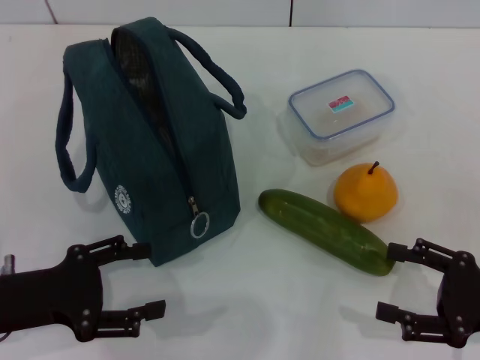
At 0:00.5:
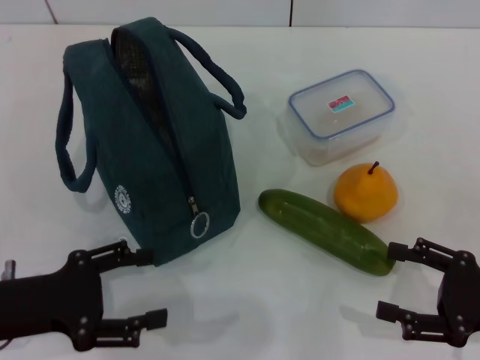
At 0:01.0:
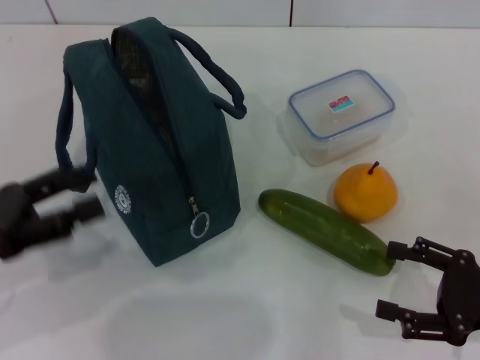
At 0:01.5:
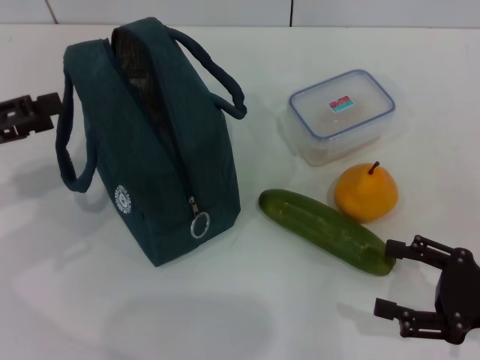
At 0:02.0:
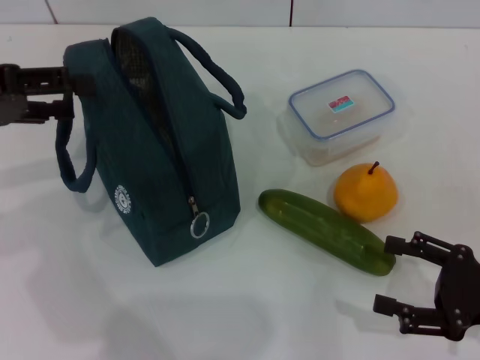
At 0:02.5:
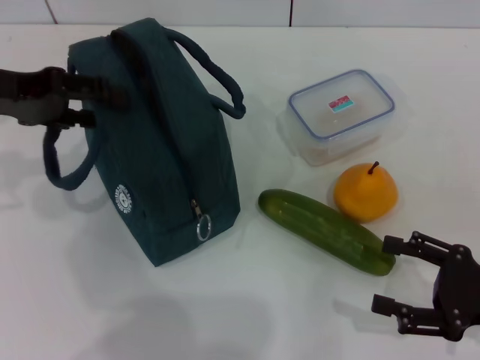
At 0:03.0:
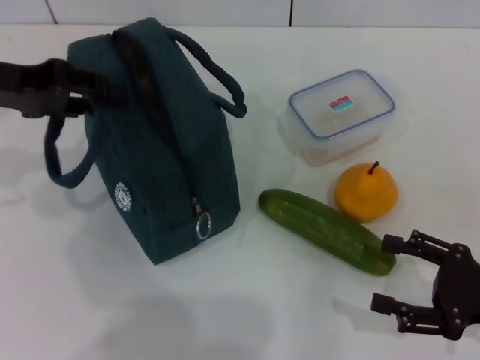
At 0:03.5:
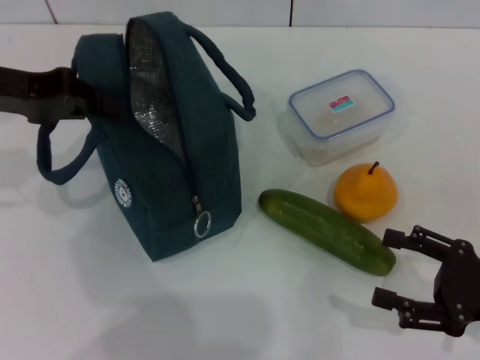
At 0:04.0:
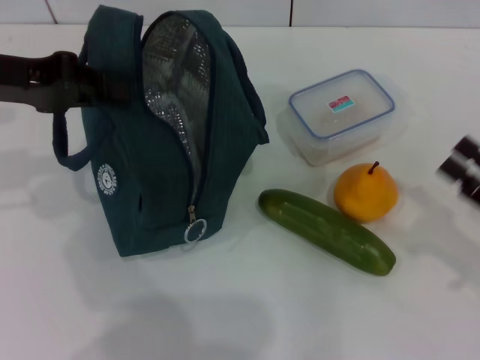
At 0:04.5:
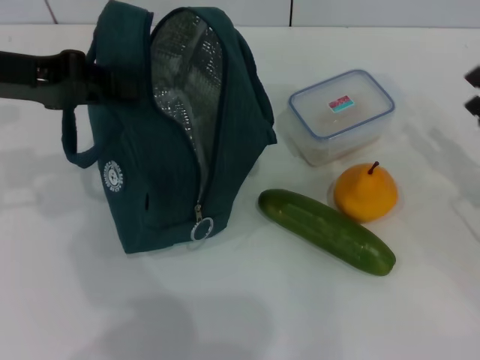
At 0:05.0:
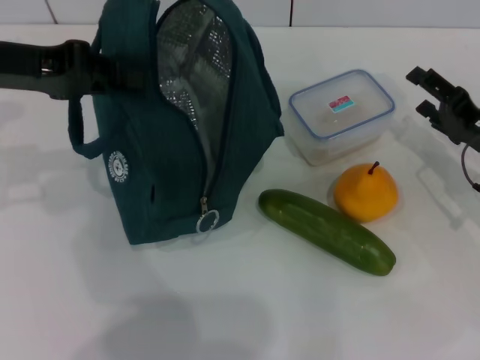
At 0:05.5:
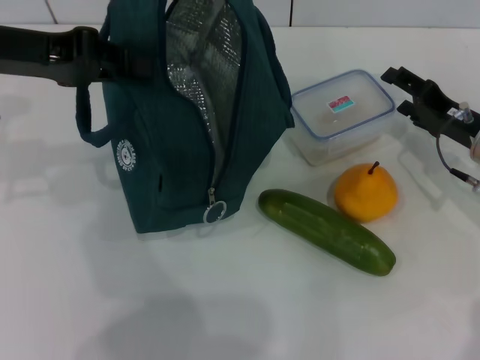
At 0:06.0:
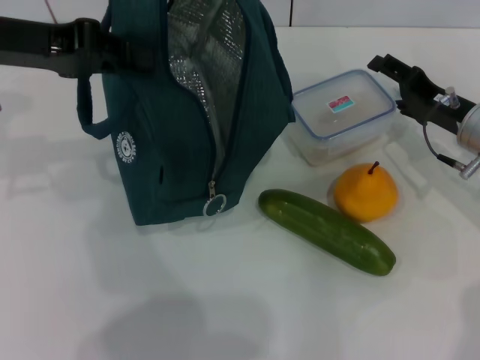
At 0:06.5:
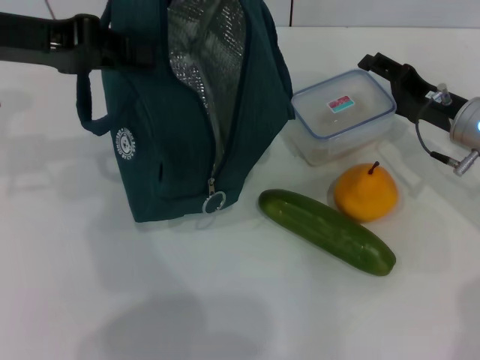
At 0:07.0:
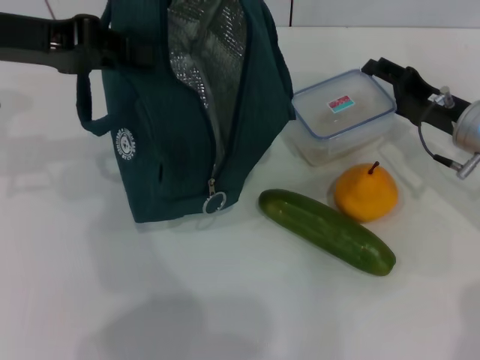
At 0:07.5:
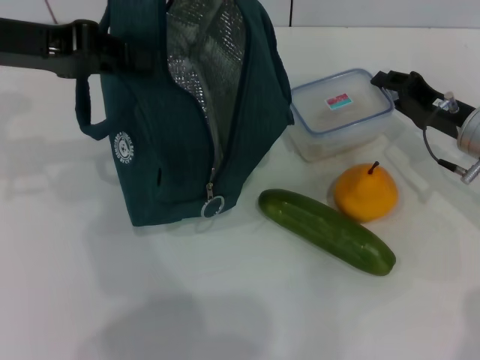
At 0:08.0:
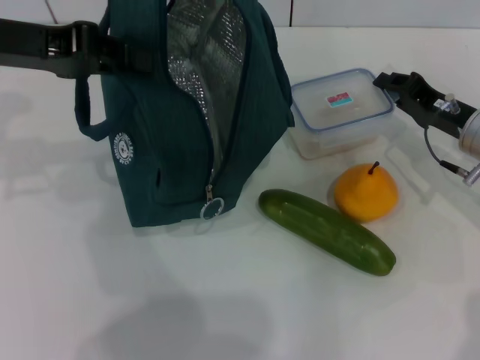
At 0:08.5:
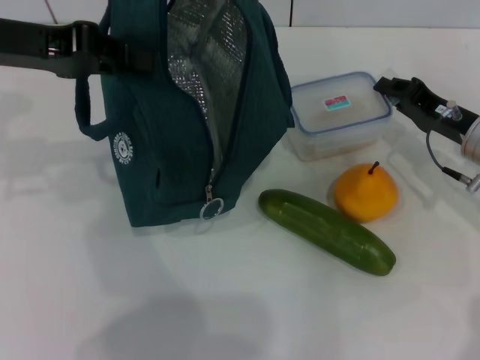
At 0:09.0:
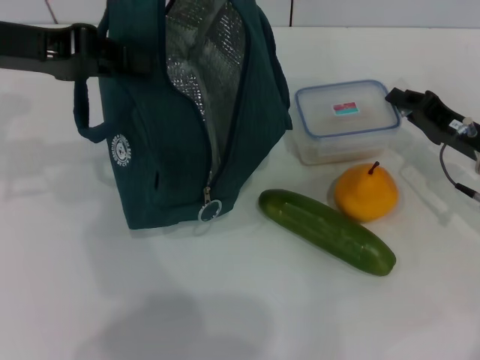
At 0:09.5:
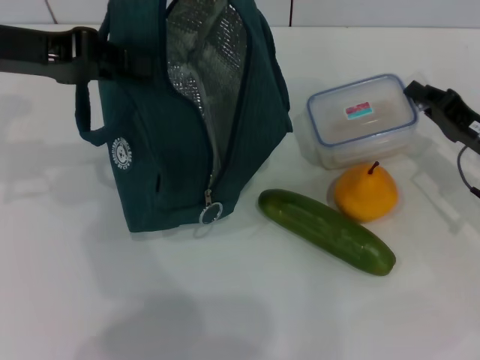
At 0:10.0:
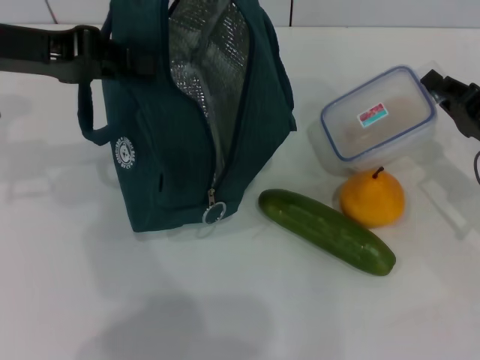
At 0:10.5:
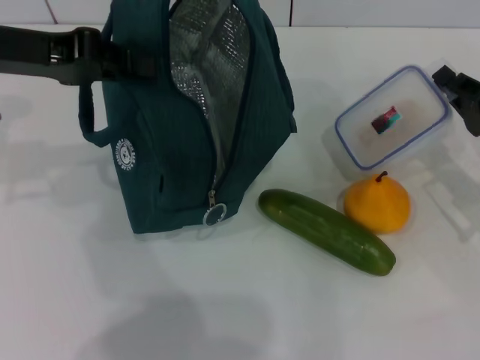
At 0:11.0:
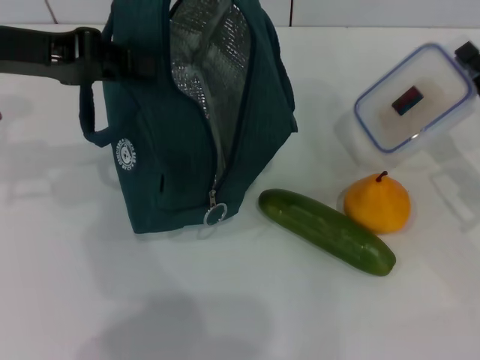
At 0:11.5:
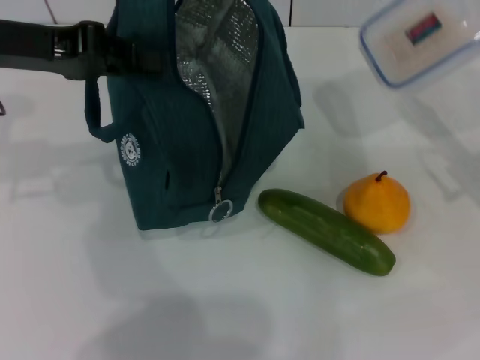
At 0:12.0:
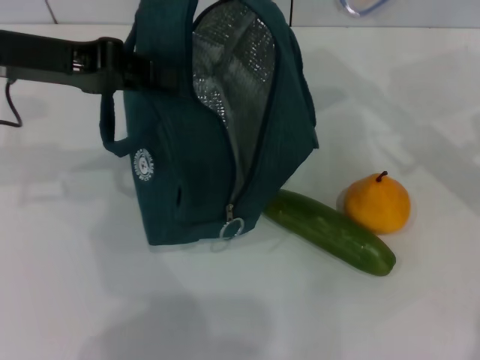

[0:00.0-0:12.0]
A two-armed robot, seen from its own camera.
Step, 0:00.0 to 0:03.5: Hold the lunch bag with your left hand.
Step, 0:04.0 to 0:07.5: Pick up the lunch box with your right hand.
0:00.0 to 0:02.0: The left gripper travels upward and forward by roughly 20 cm.
0:02.0 to 0:04.0: The left gripper shifts by approximately 5 cm, and closes.
0:04.0 to 0:06.0: The right gripper moves forward and to the left, approximately 20 cm.
0:06.0 to 0:08.0: The right gripper closes up.
0:08.0 to 0:10.0: The right gripper travels backward by about 5 cm.
0:10.0 to 0:12.0: The right gripper heads upward, covering roughly 10 cm.

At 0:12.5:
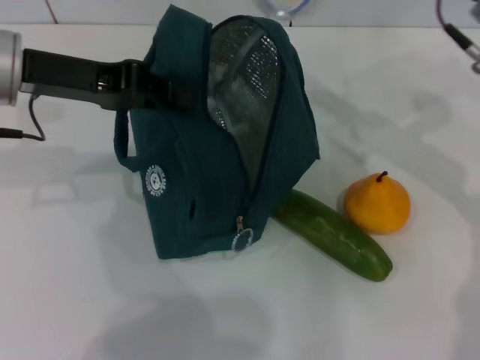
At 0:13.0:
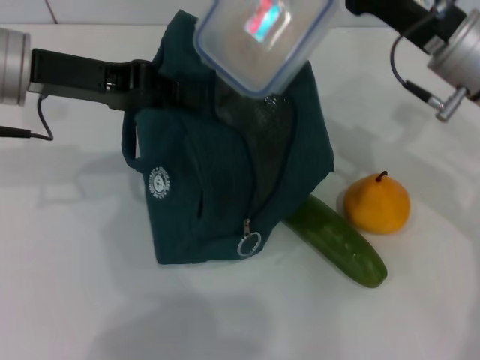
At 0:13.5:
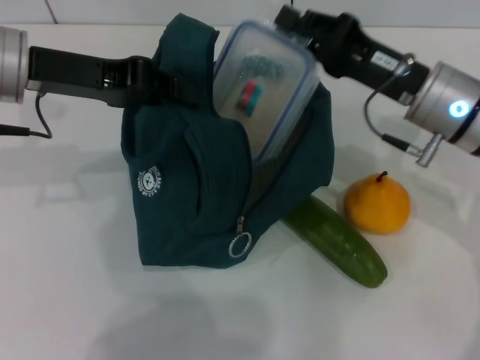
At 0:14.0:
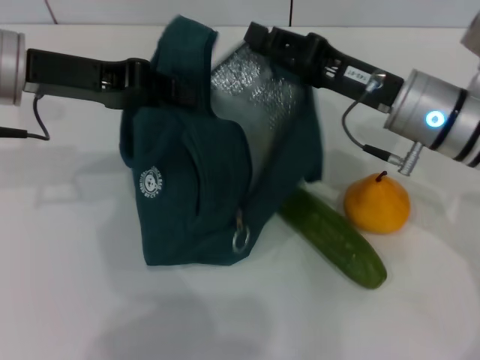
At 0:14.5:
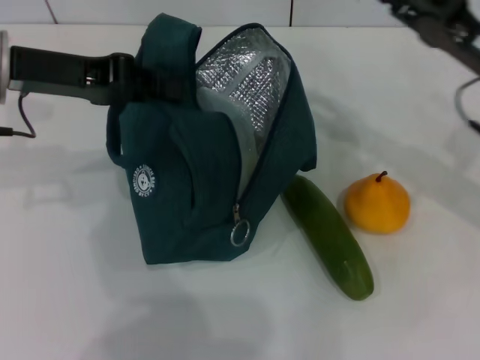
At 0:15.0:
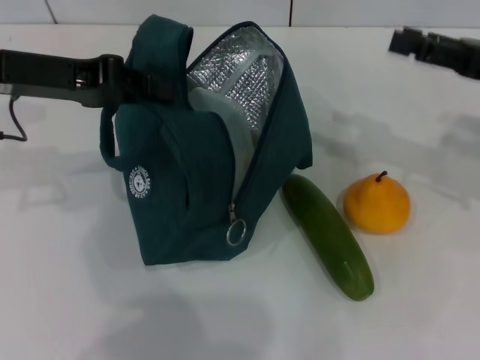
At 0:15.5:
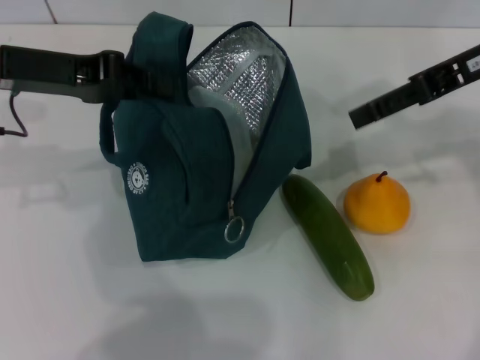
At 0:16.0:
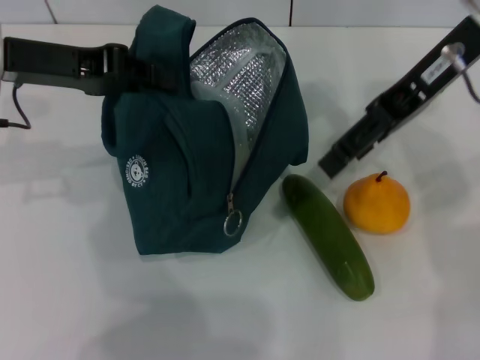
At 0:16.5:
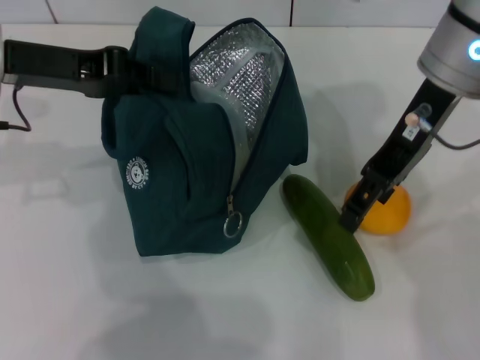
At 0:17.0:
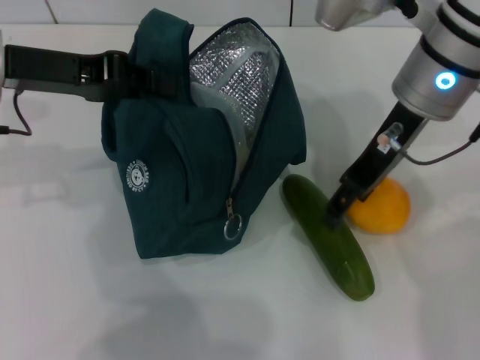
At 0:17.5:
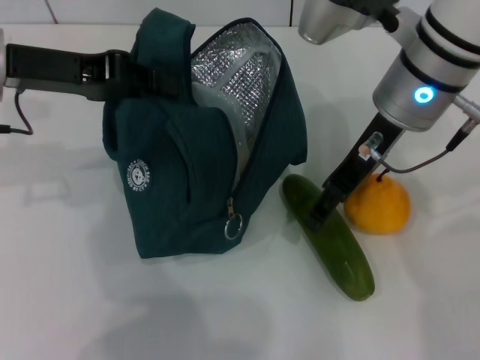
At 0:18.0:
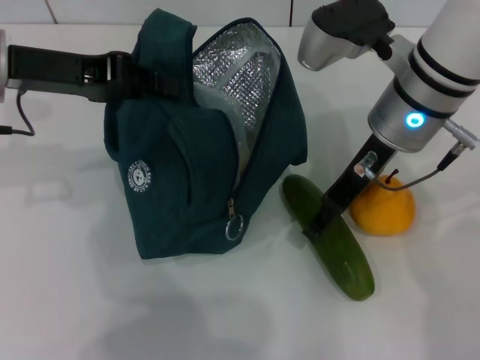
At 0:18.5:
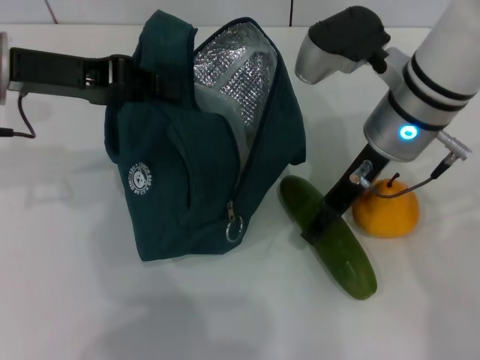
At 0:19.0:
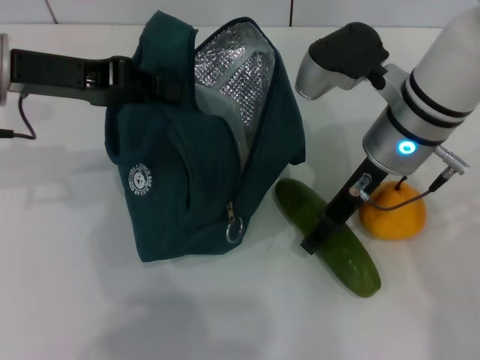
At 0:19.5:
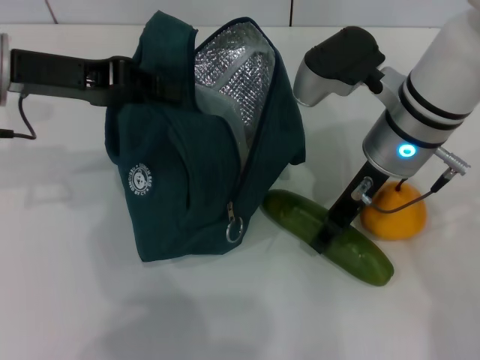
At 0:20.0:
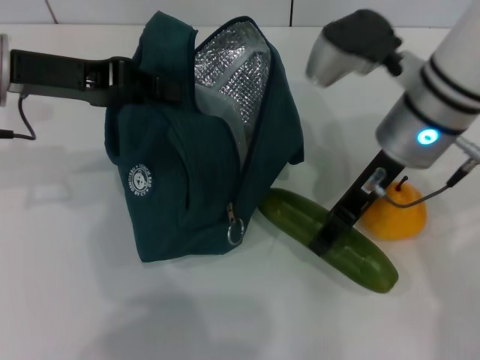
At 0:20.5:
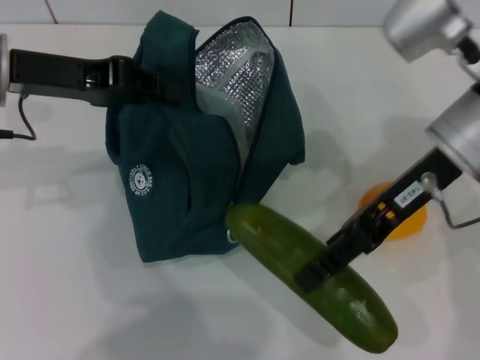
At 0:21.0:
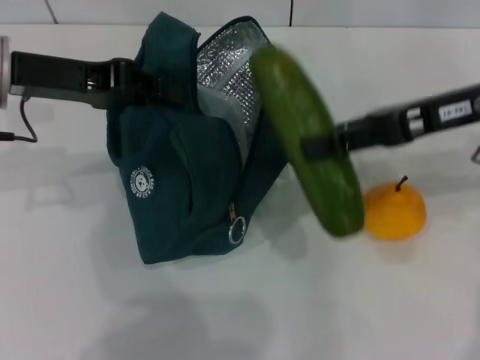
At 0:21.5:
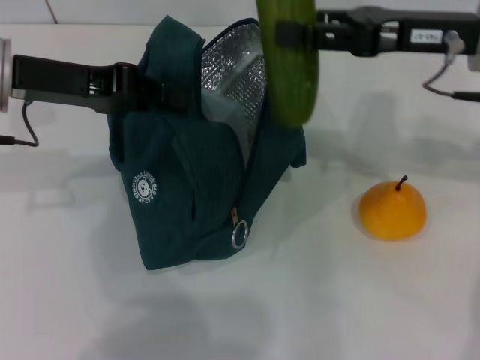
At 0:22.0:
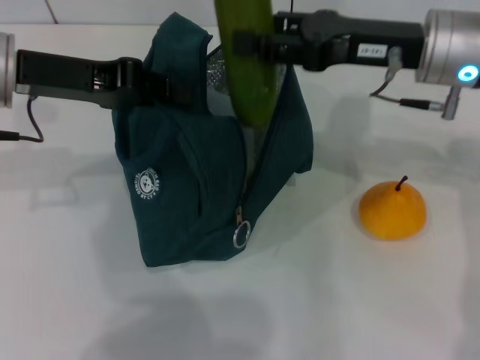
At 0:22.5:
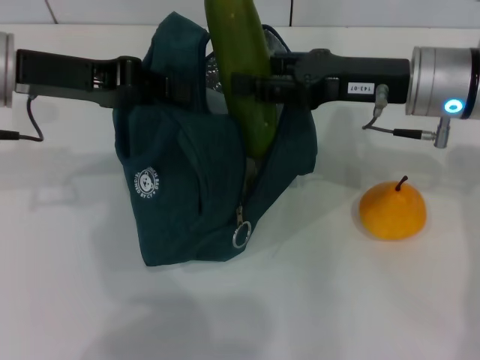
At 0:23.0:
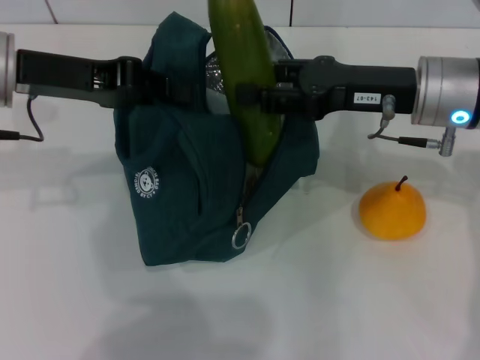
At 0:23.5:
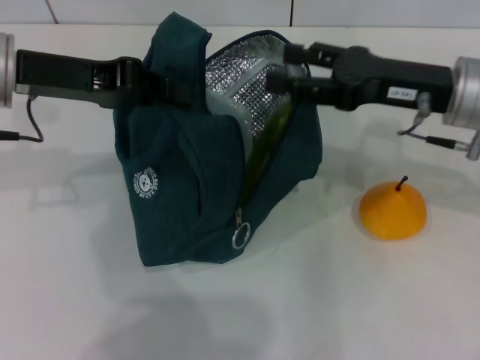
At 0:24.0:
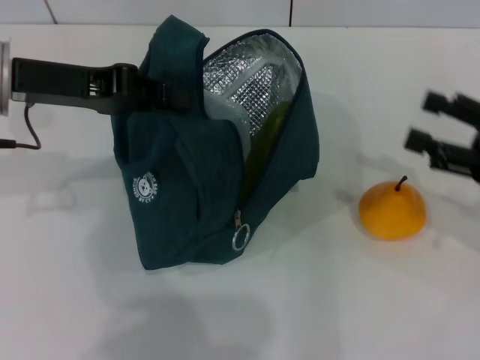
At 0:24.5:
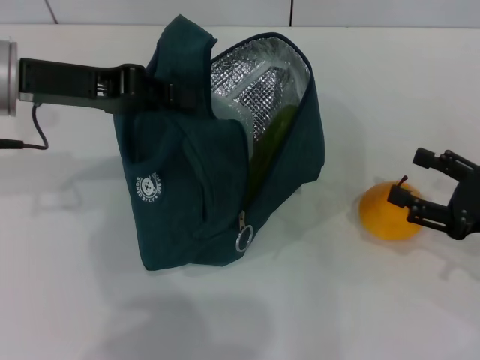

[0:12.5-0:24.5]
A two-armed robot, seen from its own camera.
Step, 0:14.0 to 0:19.5: Pick up the cucumber with your right hand.
Step, 0:20.0 to 0:23.0: Put the cucumber into the lunch bag with your right hand.
0:12.5 to 0:14.5: The right gripper ends up about 10 cm from where it was, and opens.
0:14.5 to 0:16.5: The right gripper heads to the left and upward, covering approximately 15 cm, and opens.
0:16.5 to 0:18.5: The right gripper is displaced downward by roughly 10 cm.
0:18.5 to 0:20.5: The right gripper goes some 5 cm to the right.
0:20.5 to 0:22.5: The right gripper moves some 5 cm.
0:22.5 to 0:24.5: The right gripper moves to the right, backward and downward, about 20 cm.

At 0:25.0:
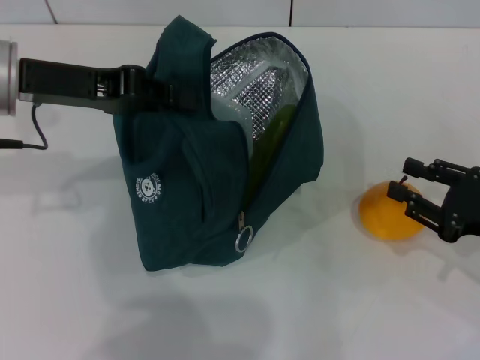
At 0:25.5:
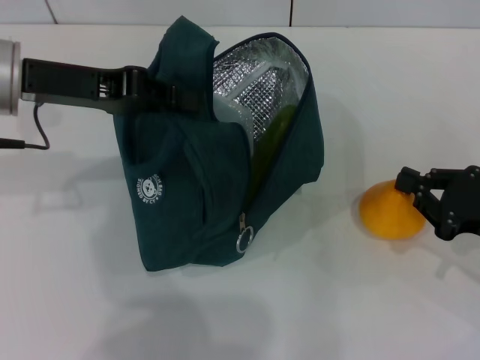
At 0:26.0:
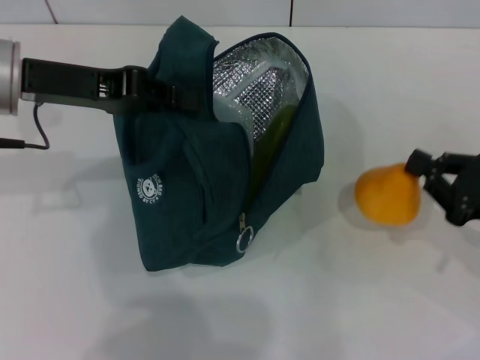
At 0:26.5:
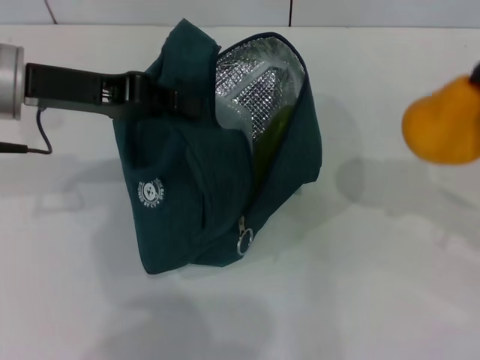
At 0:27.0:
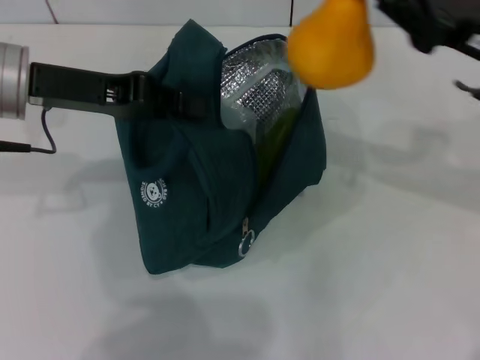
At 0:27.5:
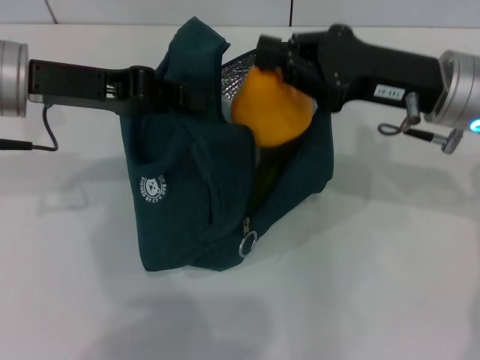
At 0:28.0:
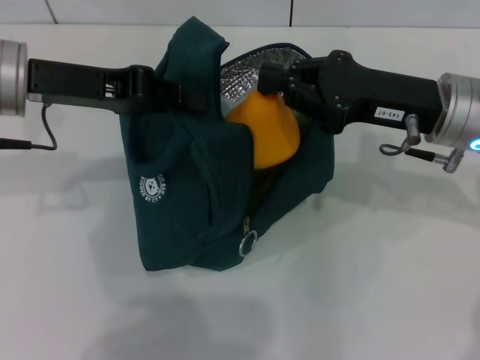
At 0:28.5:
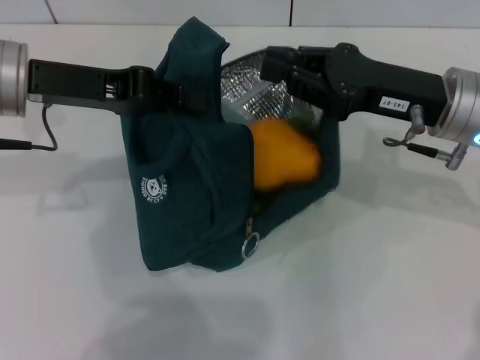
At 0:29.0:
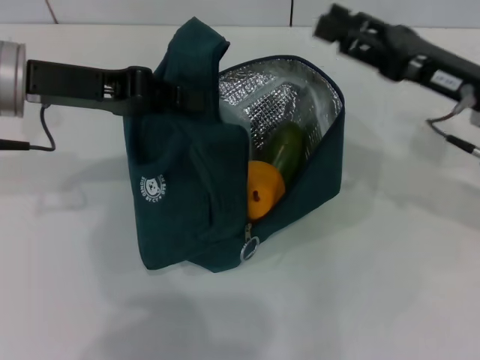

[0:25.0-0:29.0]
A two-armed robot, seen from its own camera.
0:25.0 to 0:27.0: The right gripper heads upward, forward and to the left, covering roughly 15 cm, and closes its fingers.
0:27.0 to 0:29.0: The right gripper opens up.
